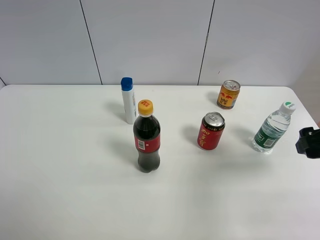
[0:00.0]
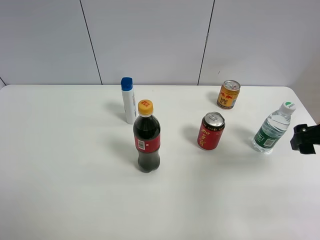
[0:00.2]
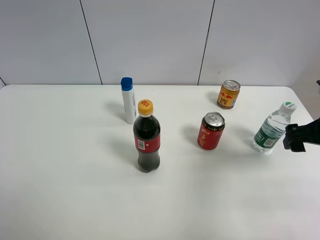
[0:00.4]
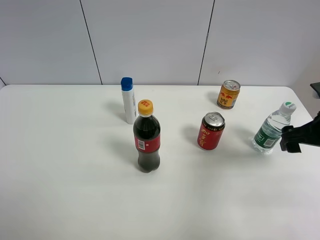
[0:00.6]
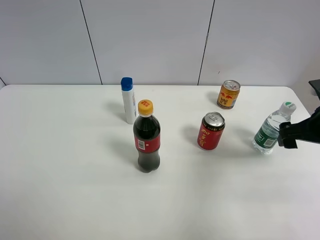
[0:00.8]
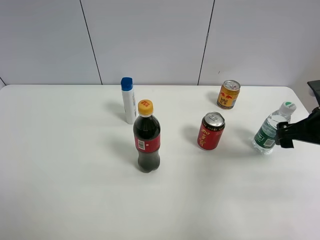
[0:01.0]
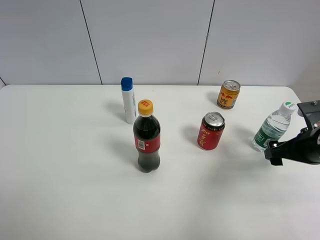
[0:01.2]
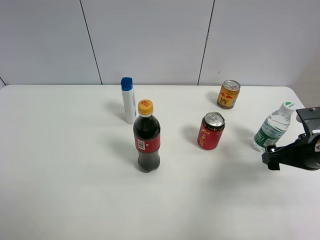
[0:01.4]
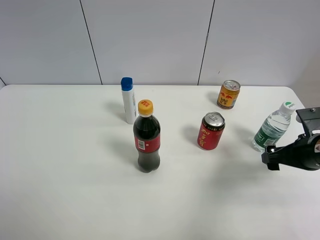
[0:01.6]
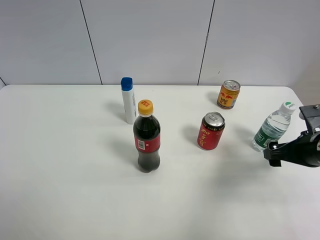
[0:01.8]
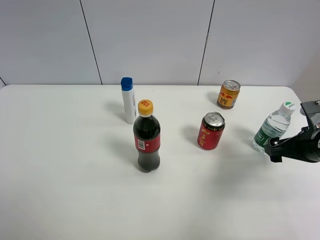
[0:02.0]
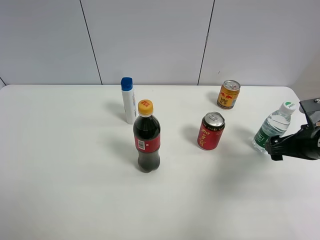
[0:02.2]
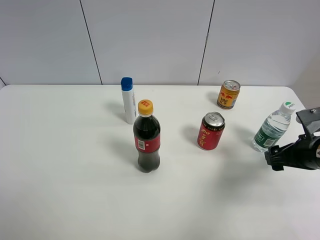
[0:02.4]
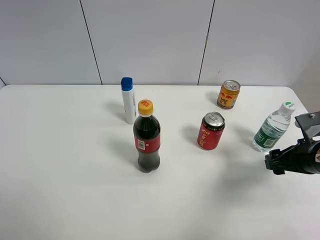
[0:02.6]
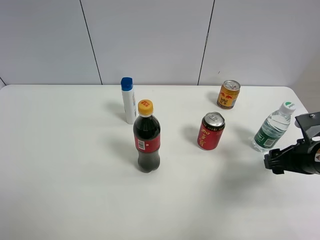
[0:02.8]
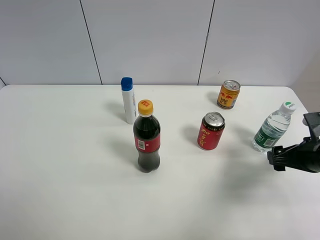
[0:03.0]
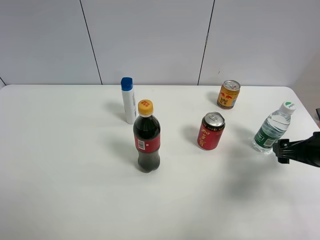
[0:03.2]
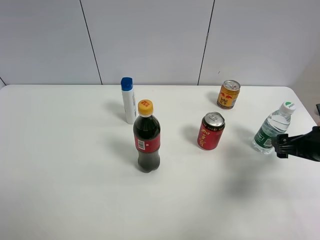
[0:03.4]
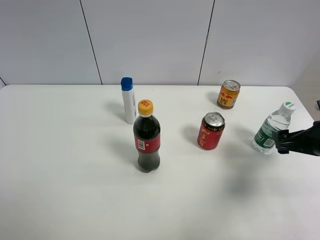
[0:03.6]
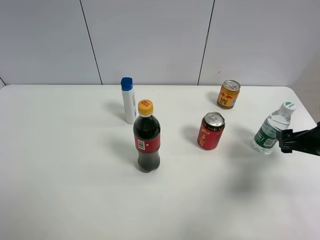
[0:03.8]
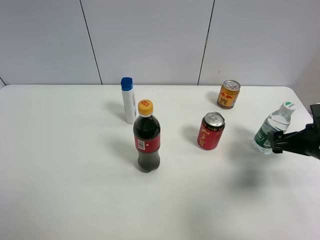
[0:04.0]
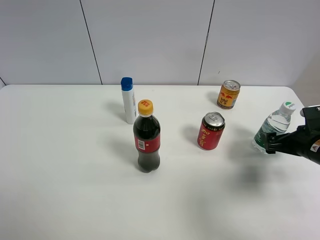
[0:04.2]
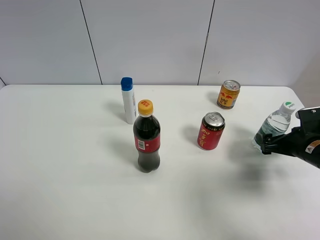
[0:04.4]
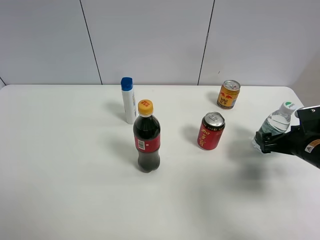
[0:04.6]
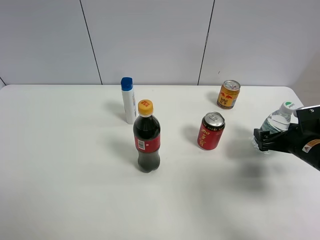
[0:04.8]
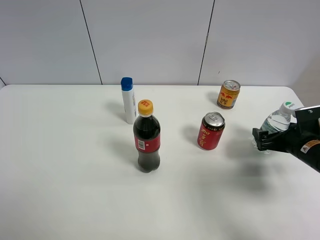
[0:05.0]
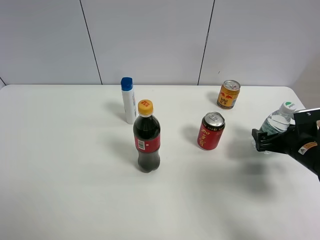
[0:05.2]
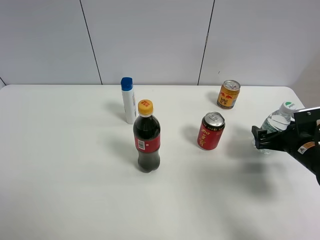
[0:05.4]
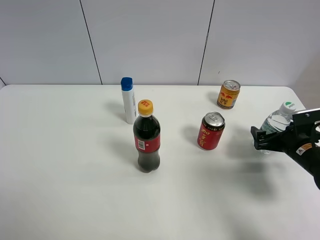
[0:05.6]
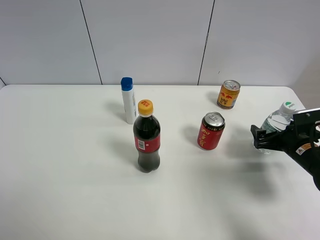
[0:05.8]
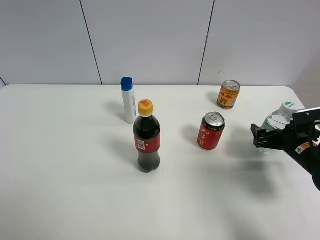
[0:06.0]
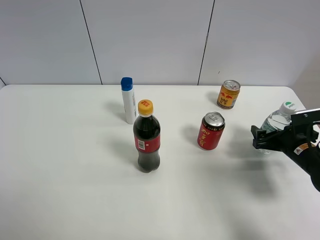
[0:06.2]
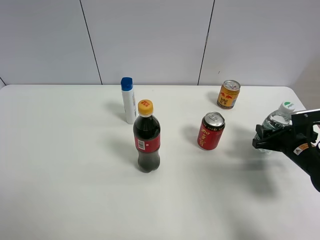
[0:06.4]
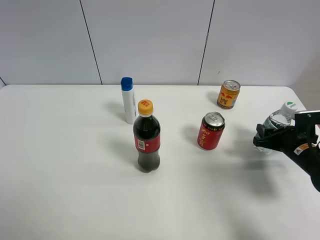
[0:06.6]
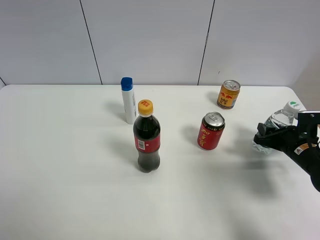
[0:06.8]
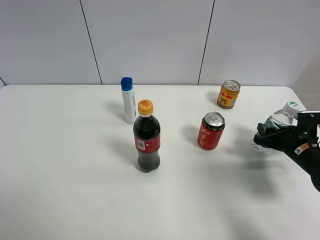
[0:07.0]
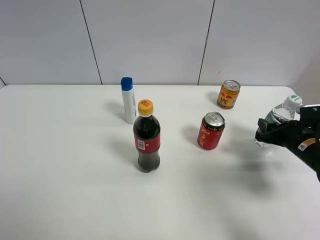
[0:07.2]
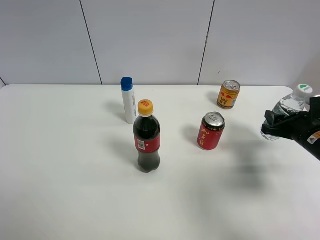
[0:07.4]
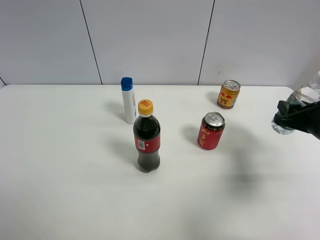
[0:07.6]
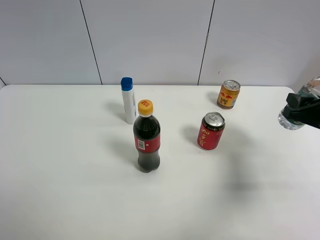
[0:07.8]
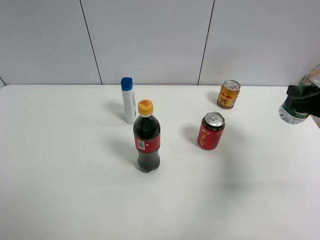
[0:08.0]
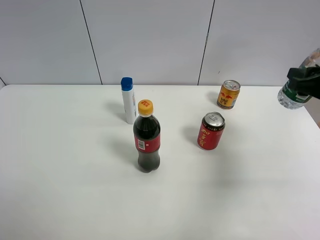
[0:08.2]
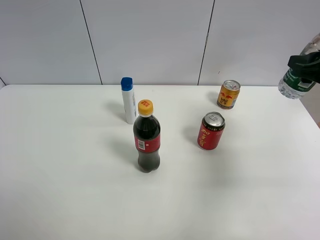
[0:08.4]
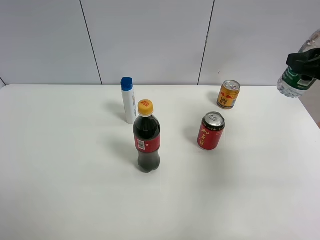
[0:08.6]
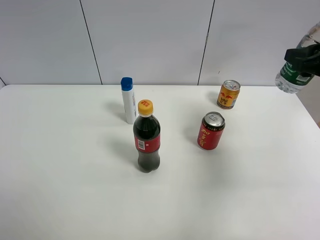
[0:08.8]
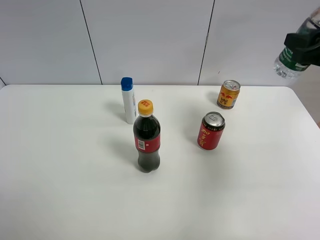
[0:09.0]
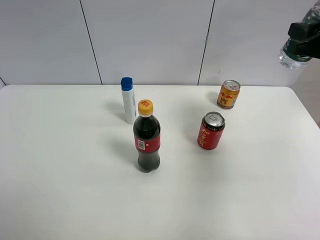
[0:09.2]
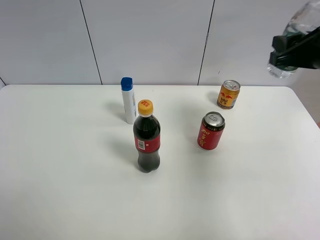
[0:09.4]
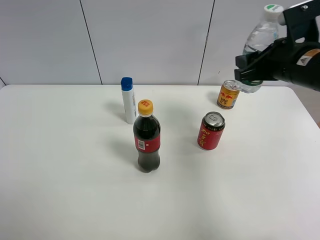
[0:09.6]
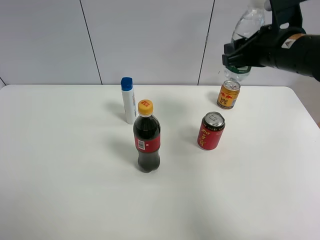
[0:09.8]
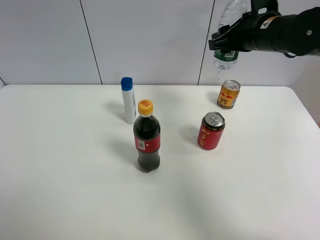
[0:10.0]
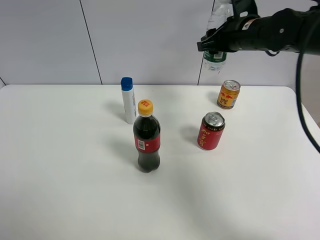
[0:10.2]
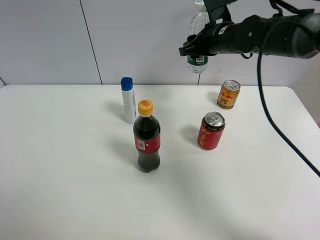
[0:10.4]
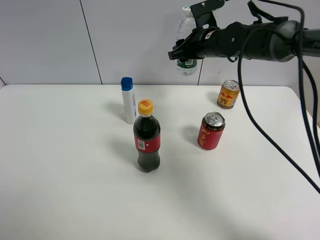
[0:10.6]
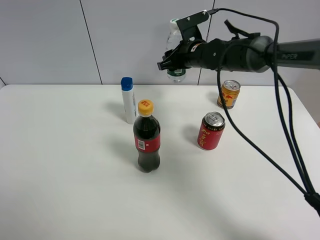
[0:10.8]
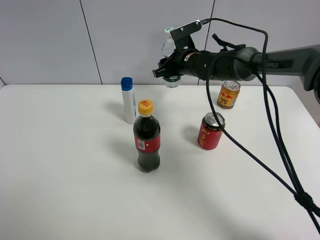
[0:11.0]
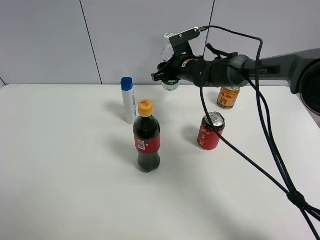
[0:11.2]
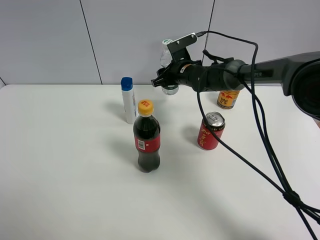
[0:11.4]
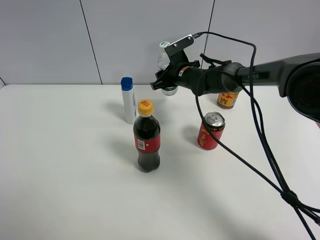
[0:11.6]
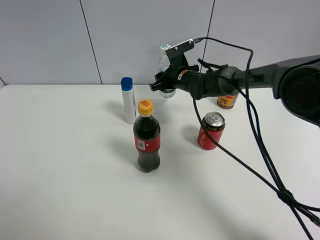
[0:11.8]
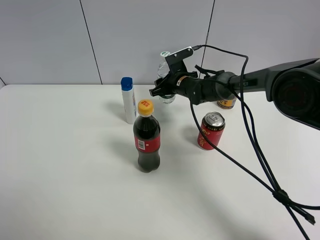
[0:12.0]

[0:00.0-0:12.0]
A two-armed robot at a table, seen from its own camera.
Task of the whole recording: the gripper move the object.
Step, 0.0 to 6.4 s: Grasp the YiBao mineral water with the right gripper.
0.0 to 1.6 s: The right gripper heads downward, covering approximately 10 cm.
1.6 to 3.0 s: The grippers stay close to where they were, moving slightly.
3.0 to 4.4 s: The right gripper shifts by about 5 cm.
4.4 to 6.0 s: The grippers make only small movements.
6.0 to 7.6 s: The right gripper heads upward, covering some 10 cm, and closes up.
7.6 to 9.0 s: The right gripper travels upward by about 15 cm.
9.0 to 10.4 s: The right gripper is displaced forward and to the left by roughly 25 cm.
10.4 to 12.0 s: The right gripper shifts some 15 cm downward and to the left.

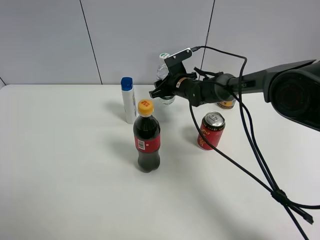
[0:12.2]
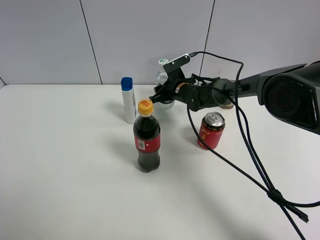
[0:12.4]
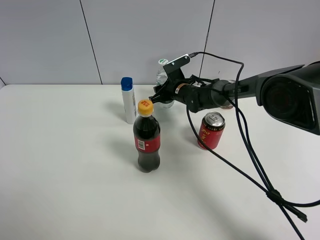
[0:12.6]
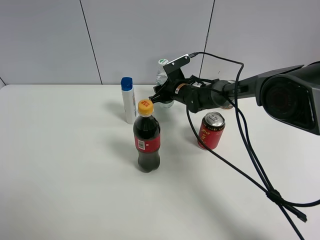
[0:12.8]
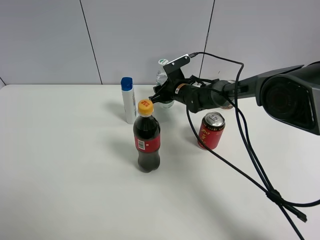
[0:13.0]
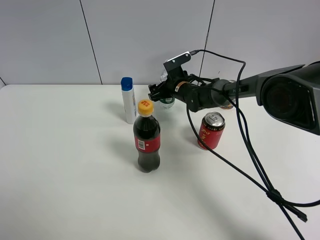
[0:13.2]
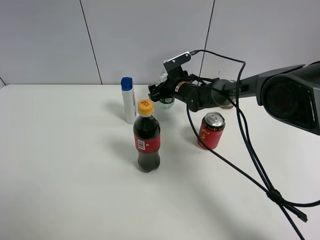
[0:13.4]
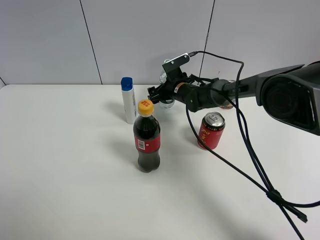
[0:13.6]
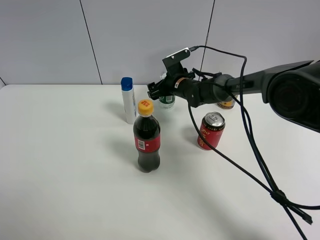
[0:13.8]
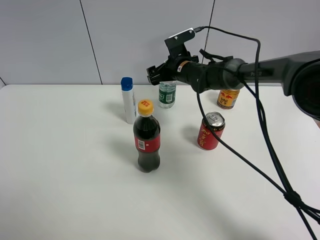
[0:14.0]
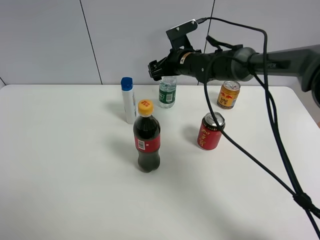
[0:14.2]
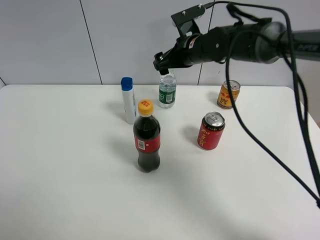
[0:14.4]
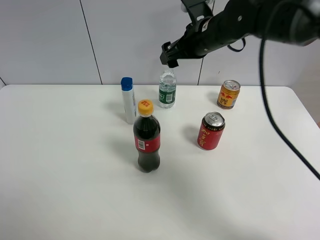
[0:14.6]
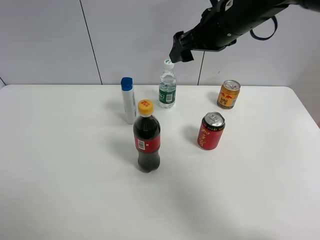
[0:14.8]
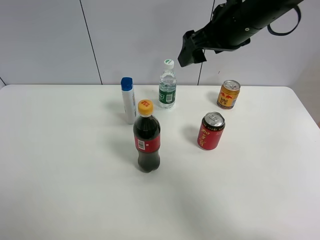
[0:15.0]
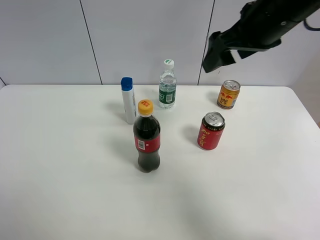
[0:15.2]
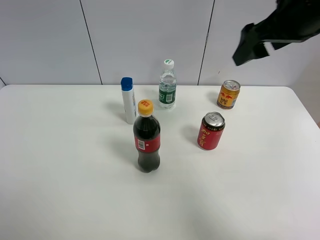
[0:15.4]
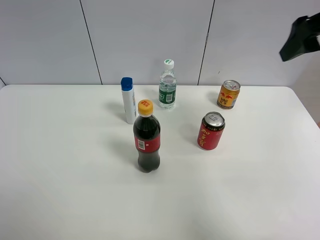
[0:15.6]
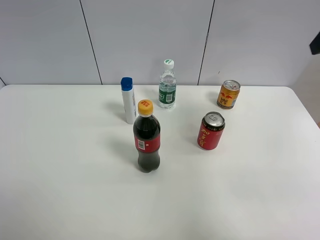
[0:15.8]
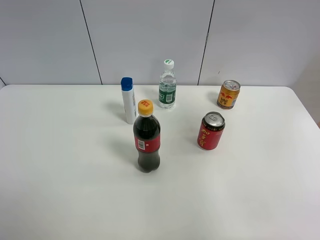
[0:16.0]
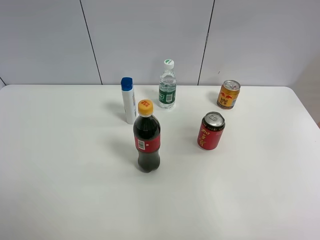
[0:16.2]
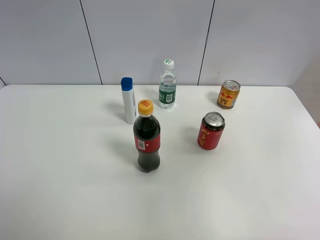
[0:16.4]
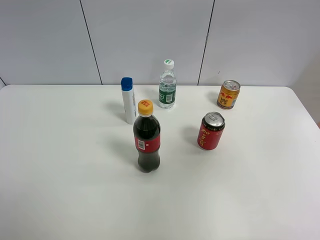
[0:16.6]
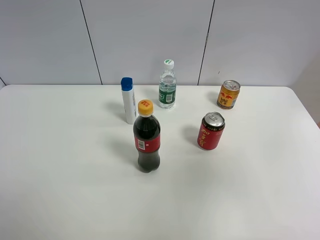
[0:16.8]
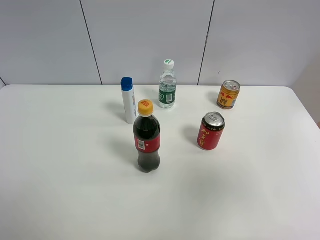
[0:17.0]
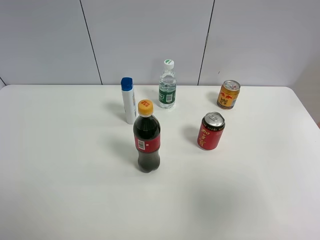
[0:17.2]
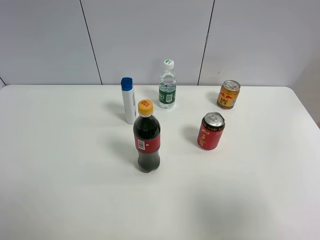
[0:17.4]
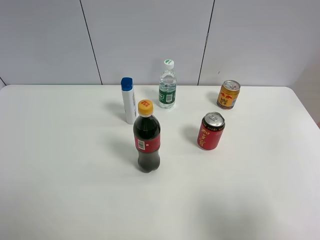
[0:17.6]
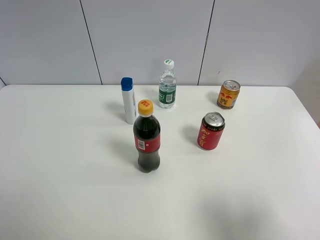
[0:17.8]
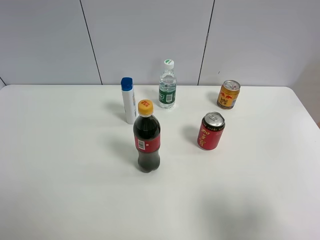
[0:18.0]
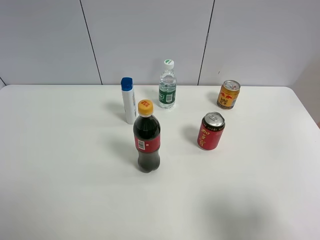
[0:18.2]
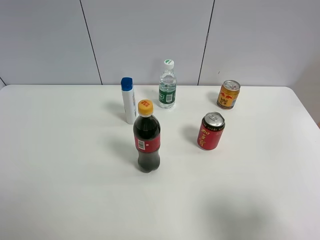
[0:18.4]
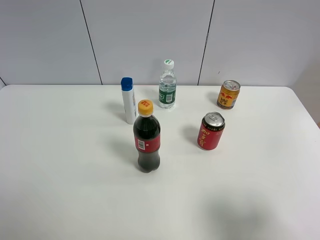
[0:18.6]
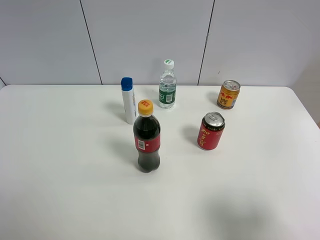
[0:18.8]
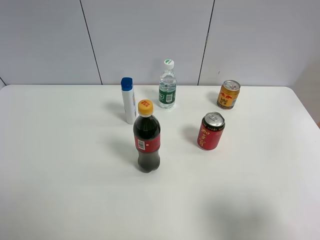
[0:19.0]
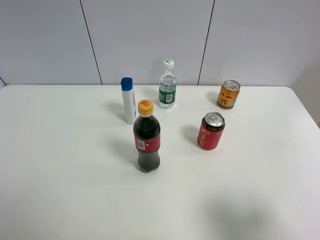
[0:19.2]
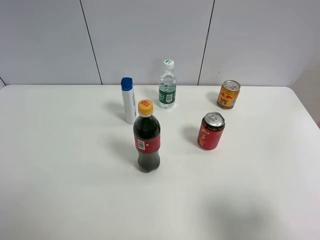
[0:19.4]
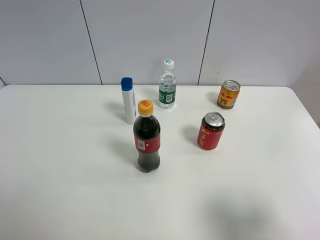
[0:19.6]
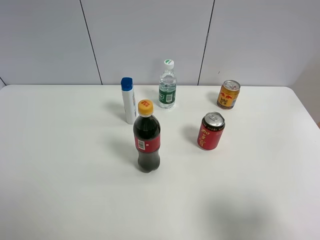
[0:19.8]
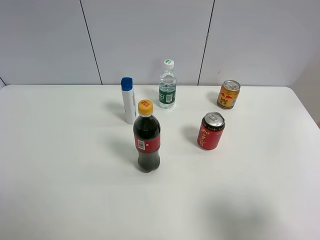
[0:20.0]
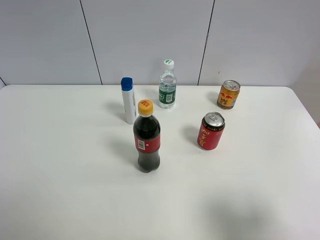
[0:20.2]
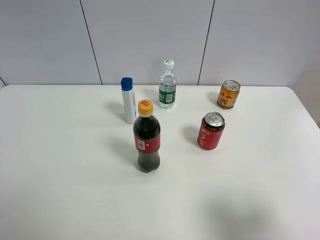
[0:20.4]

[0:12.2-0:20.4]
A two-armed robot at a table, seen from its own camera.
Task of the whole recording: the gripper move the object.
12.2 to 13.8 s: The right gripper opens.
13.8 to 15.4 s: The right gripper goes roughly 35 cm upward, backward and to the right.
15.4 to 17.2 s: The right gripper is displaced backward by approximately 30 cm.
17.2 to 18.8 s: The right gripper heads downward, covering about 10 cm.
18.8 to 20.4 s: The two grippers keep their place.

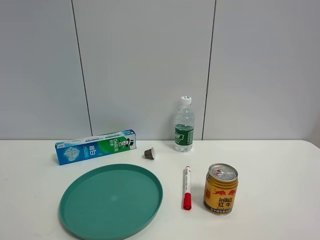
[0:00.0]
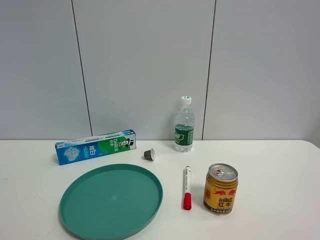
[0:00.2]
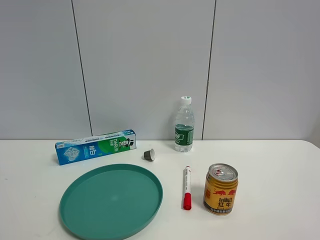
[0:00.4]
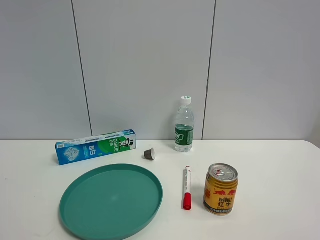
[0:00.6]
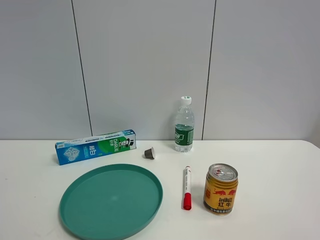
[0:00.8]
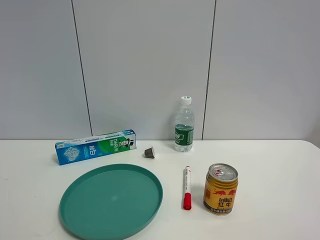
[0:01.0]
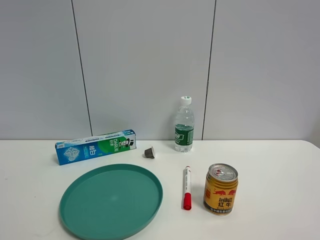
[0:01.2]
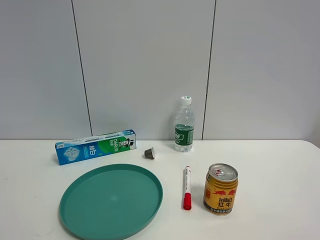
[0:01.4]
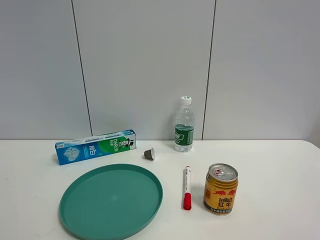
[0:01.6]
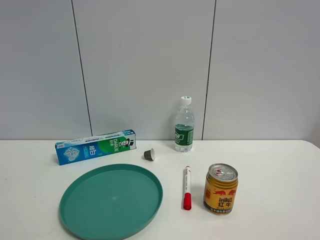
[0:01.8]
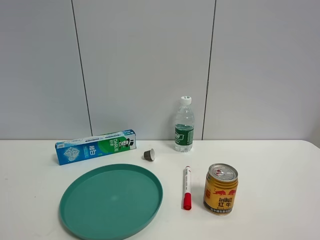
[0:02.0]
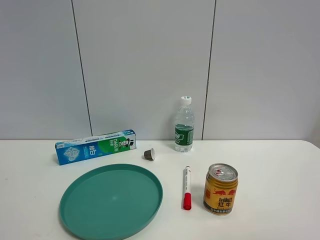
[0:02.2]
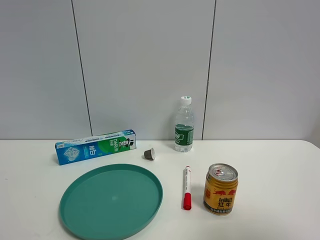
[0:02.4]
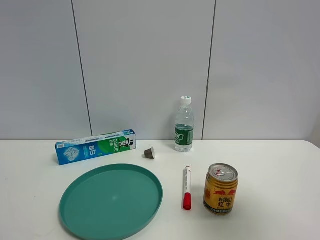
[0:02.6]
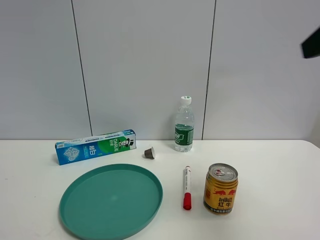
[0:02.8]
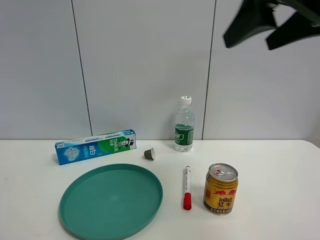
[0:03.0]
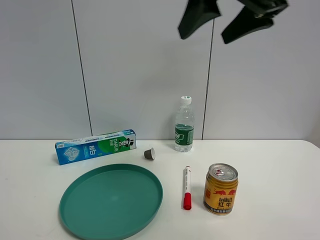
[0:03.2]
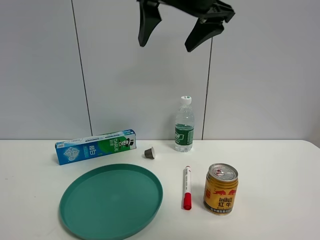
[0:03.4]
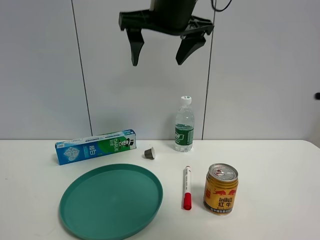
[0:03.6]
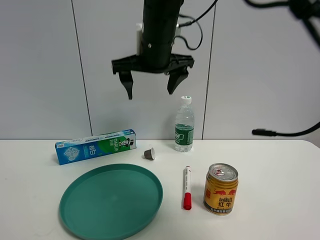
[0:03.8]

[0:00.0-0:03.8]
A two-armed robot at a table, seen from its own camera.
Task of the whole recording: the gripper move the object.
0.0 to 1.2 s: Neither gripper changes place.
1.2 to 2.6 s: The right gripper shifts about 15 cm forward and upward.
2.6 to 3.8 s: The right gripper travels to the left and forward by roughly 40 cm.
